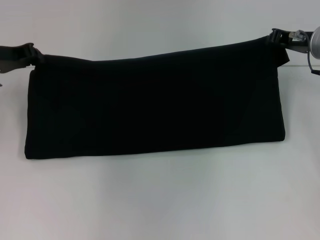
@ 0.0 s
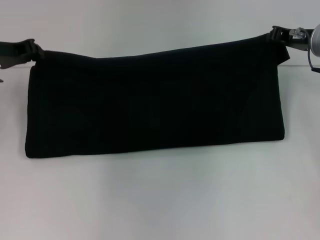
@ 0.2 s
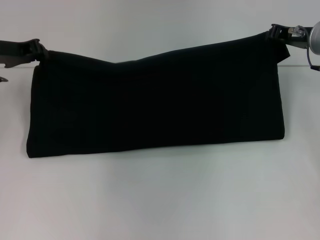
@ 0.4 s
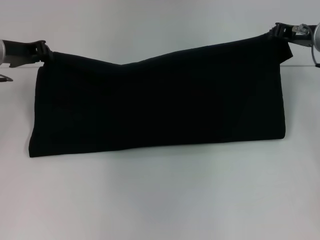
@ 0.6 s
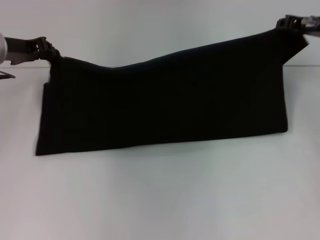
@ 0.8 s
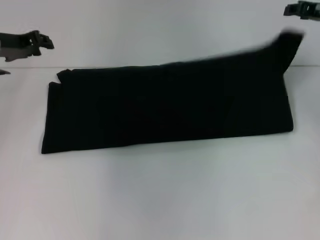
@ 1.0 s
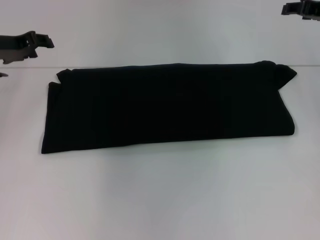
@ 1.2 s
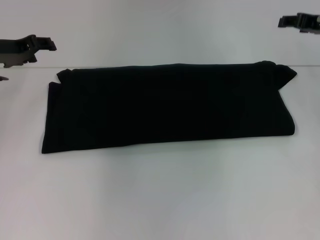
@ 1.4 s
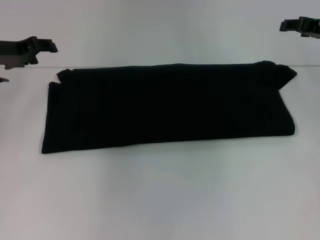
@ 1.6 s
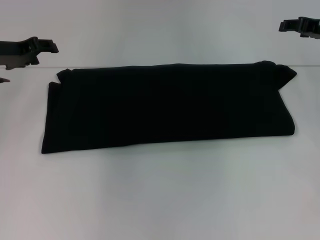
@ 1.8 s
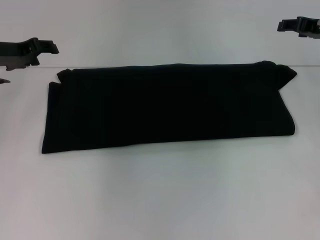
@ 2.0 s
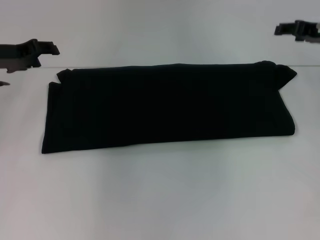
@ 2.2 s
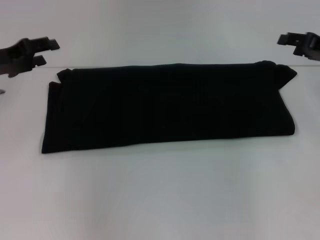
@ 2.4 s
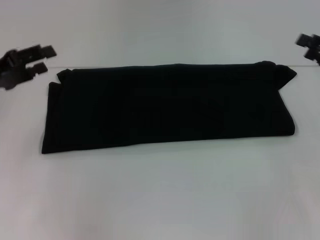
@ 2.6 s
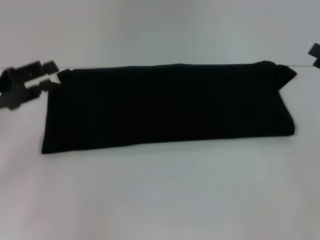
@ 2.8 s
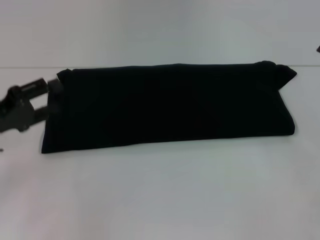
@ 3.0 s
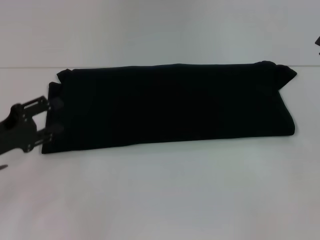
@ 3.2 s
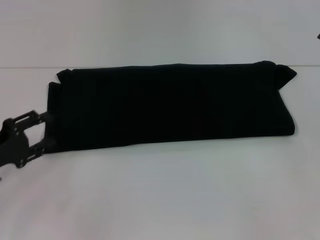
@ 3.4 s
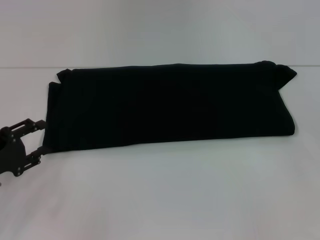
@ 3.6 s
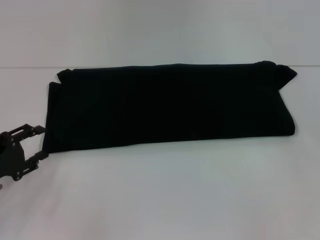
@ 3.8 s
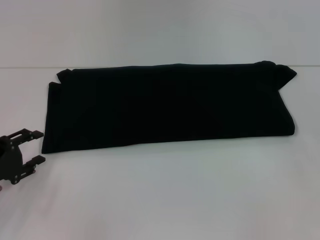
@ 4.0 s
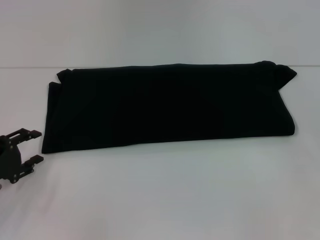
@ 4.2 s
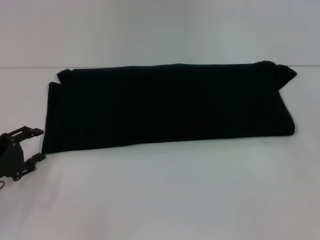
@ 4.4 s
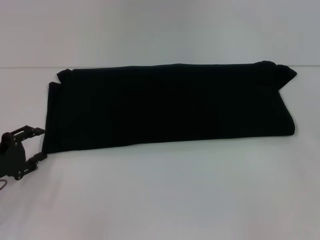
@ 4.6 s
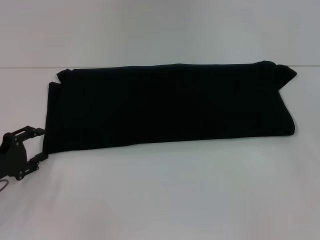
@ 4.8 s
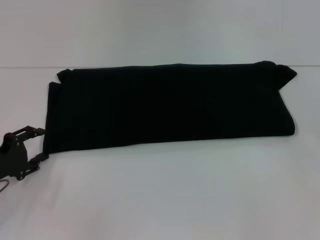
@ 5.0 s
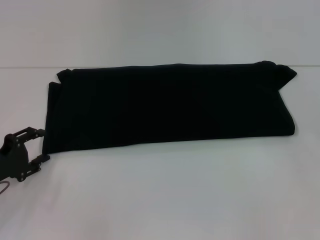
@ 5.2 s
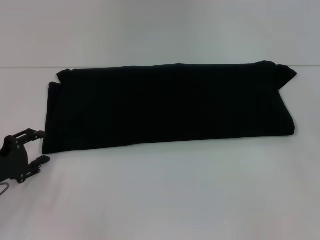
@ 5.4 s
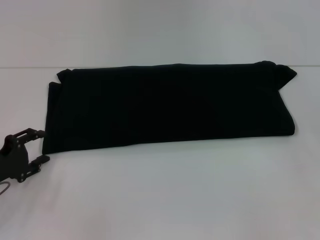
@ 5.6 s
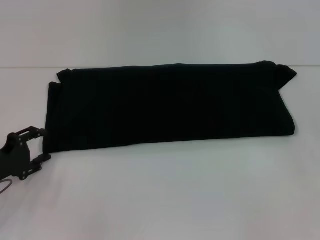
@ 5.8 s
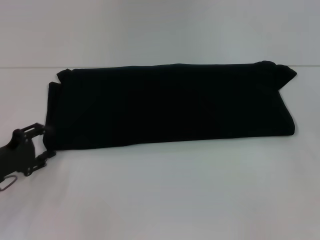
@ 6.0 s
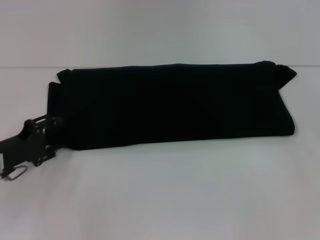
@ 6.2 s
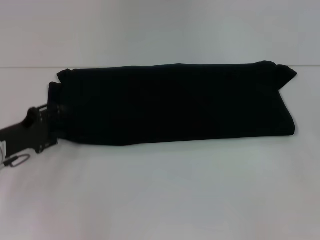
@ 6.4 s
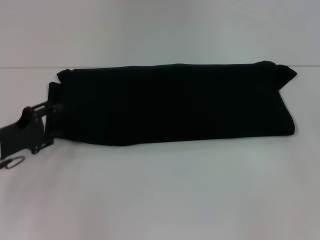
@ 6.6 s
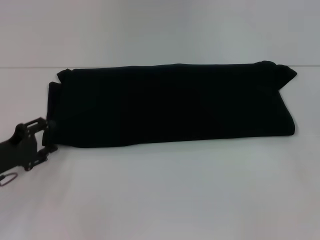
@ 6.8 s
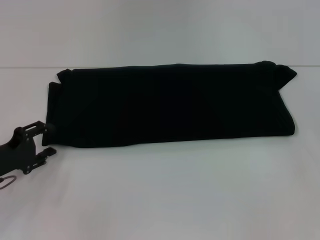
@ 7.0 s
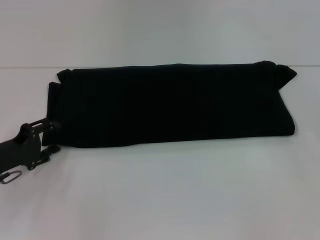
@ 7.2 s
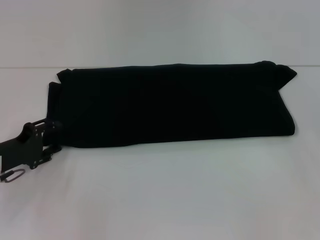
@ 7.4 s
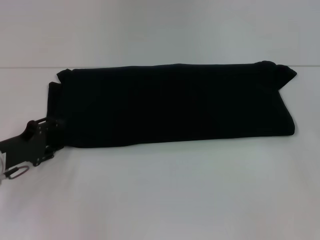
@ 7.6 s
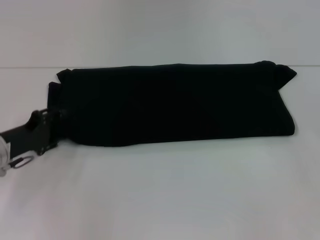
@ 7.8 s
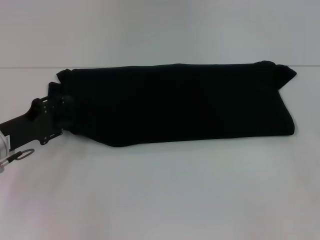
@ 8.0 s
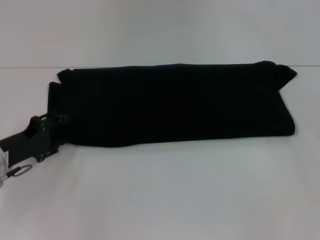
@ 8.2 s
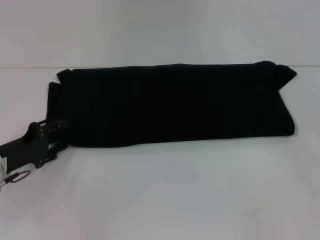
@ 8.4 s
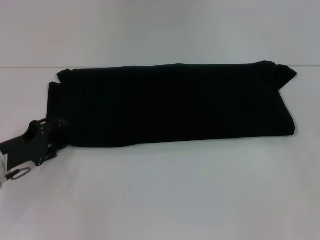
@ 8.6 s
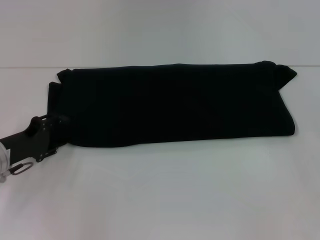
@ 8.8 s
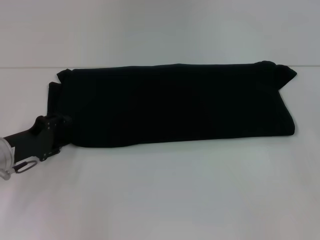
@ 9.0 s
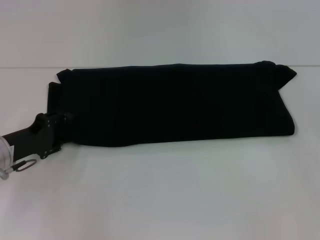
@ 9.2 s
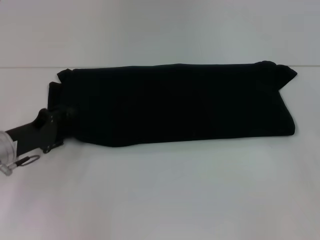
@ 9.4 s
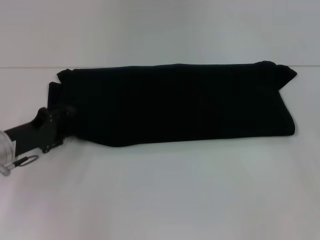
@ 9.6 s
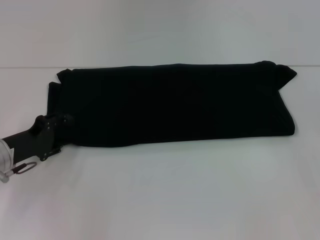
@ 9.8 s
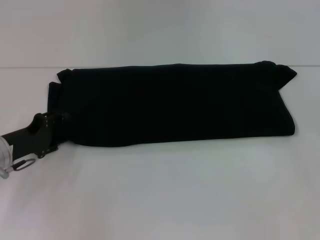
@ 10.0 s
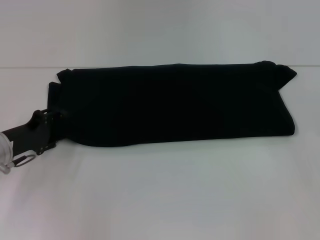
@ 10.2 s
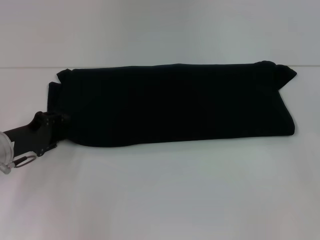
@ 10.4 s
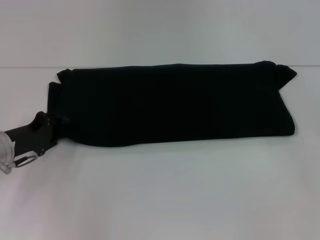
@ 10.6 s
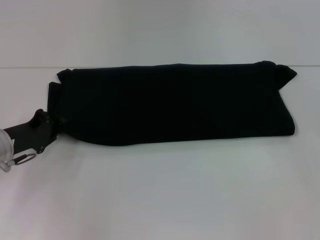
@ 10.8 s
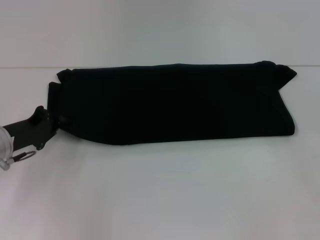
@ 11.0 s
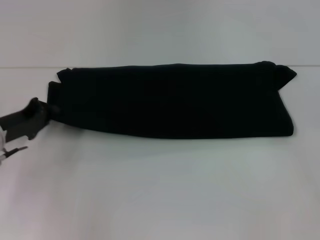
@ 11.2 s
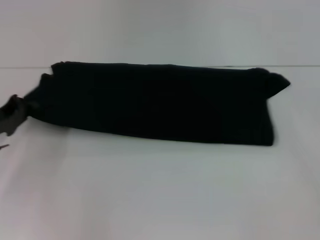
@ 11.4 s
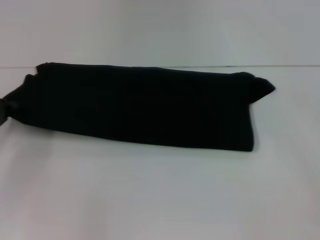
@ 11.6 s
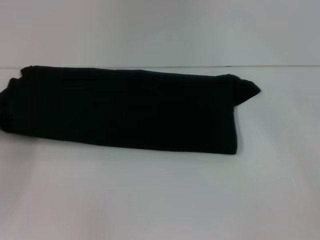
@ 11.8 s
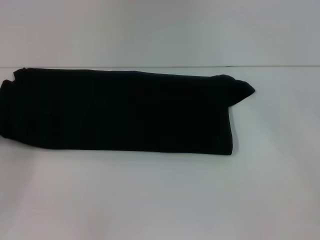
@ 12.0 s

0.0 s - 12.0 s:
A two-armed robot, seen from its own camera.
Step, 0.0 s - 2.0 s: Fold the clothes with your right hand.
0.0 s - 1.6 s: The left gripper opens. Meanwhile the right gripper opens its fingers.
1.6 s - 3.0 s: The right gripper shifts roughly 15 cm backward and to the right. Meanwhile the left gripper heads backward and downward, covering roughly 15 cm.
3.0 s - 4.4 s: The left gripper moves downward, approximately 5 cm.
4.4 s - 7.6 s: There are only small adjustments of the grippers.
7.6 s - 10.4 s: The grippers make only small movements.
10.4 s - 12.0 s: The left gripper travels to the left by roughly 5 cm, and closes.

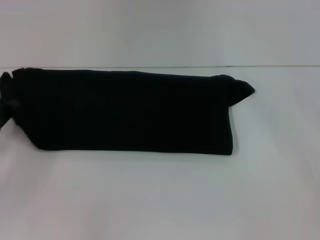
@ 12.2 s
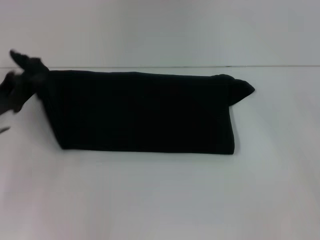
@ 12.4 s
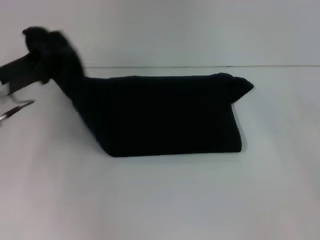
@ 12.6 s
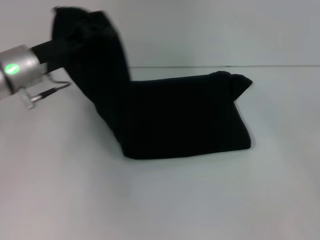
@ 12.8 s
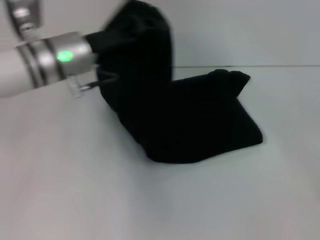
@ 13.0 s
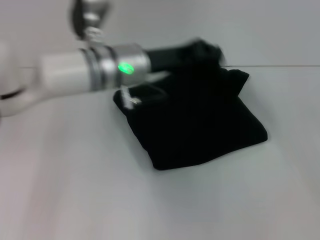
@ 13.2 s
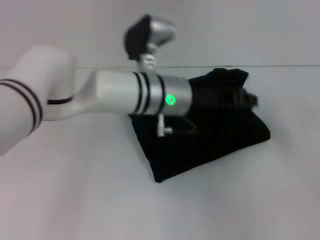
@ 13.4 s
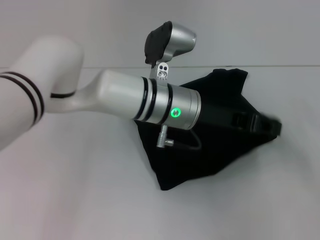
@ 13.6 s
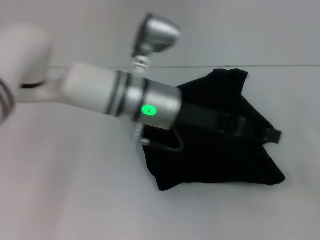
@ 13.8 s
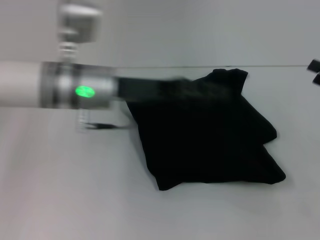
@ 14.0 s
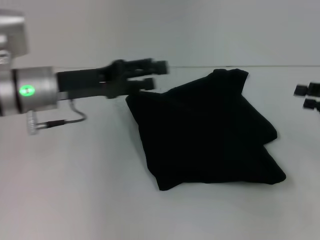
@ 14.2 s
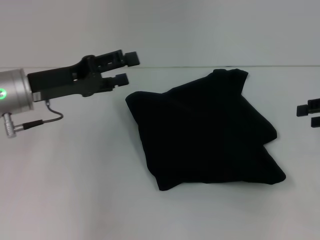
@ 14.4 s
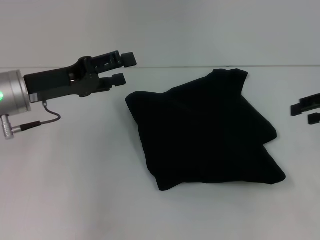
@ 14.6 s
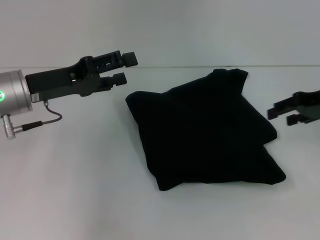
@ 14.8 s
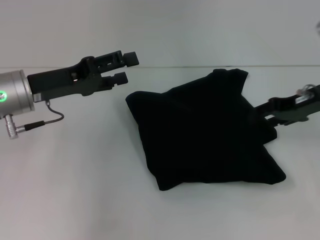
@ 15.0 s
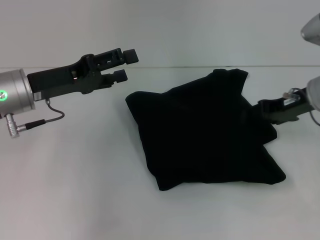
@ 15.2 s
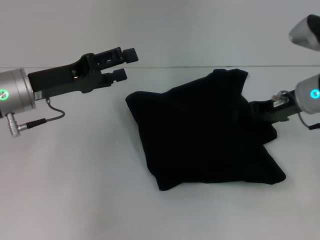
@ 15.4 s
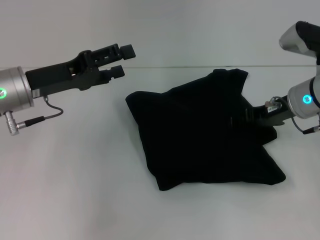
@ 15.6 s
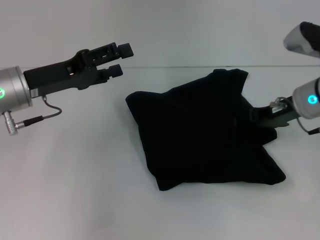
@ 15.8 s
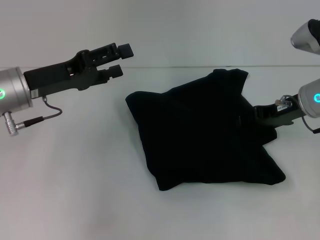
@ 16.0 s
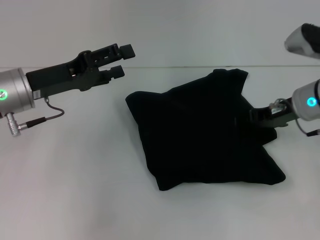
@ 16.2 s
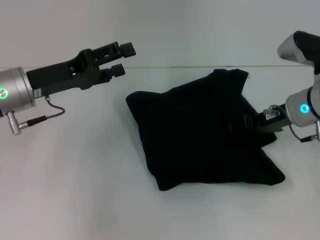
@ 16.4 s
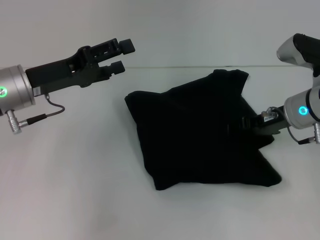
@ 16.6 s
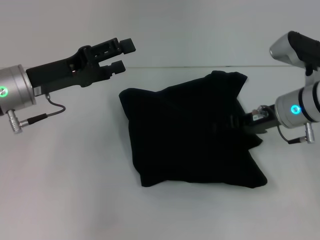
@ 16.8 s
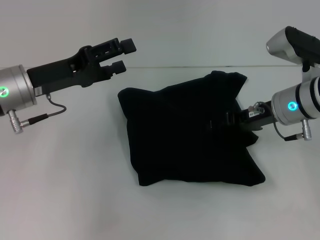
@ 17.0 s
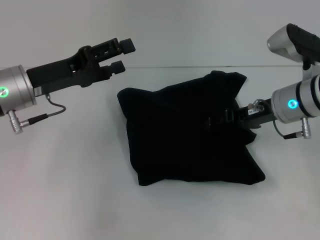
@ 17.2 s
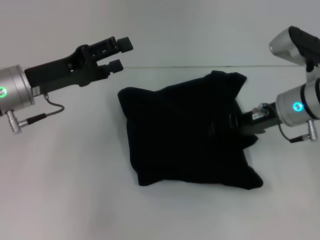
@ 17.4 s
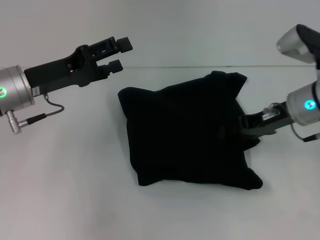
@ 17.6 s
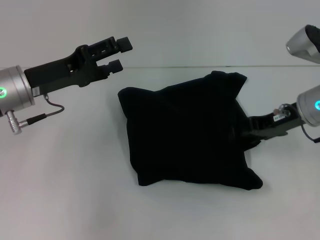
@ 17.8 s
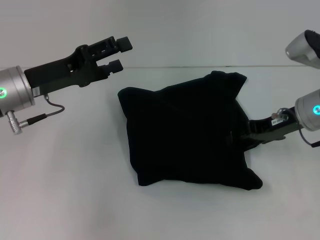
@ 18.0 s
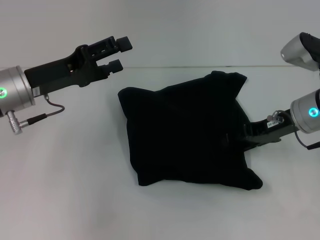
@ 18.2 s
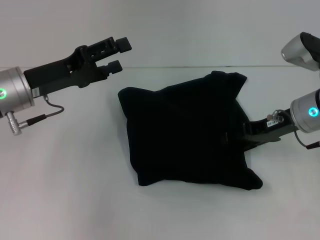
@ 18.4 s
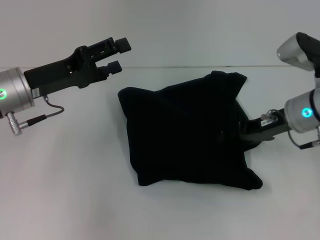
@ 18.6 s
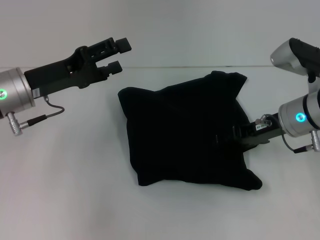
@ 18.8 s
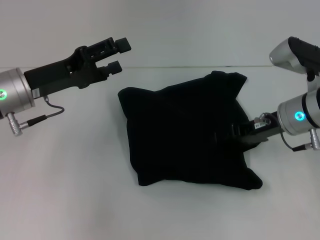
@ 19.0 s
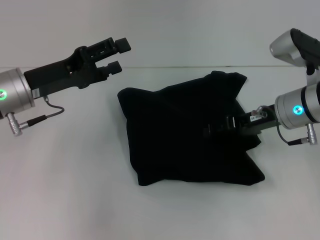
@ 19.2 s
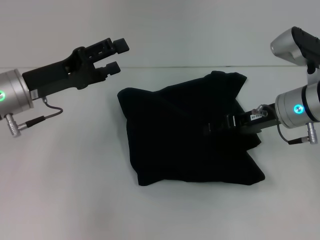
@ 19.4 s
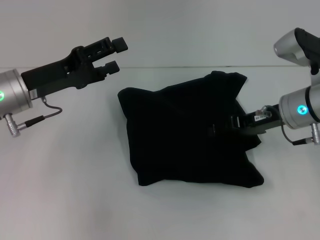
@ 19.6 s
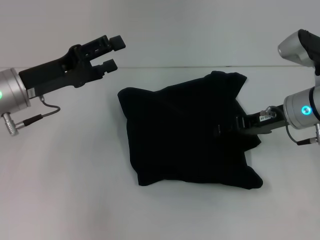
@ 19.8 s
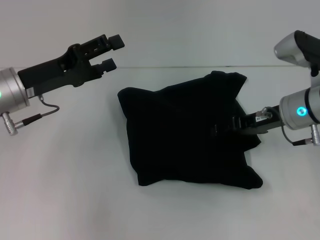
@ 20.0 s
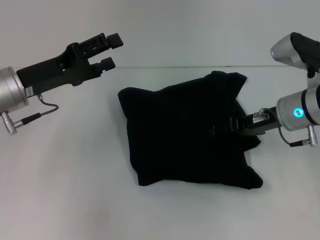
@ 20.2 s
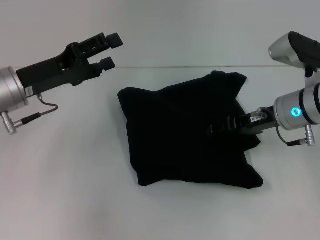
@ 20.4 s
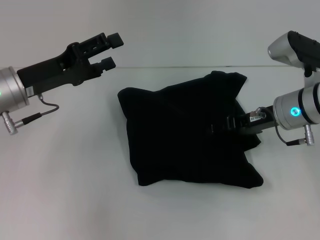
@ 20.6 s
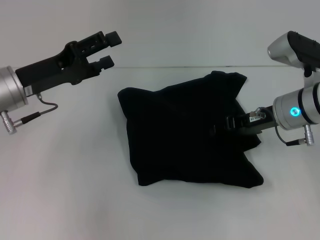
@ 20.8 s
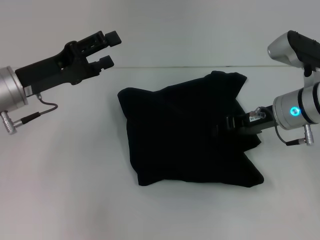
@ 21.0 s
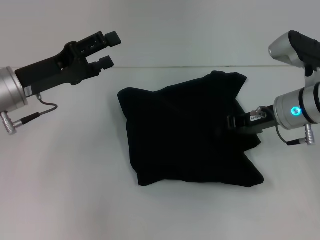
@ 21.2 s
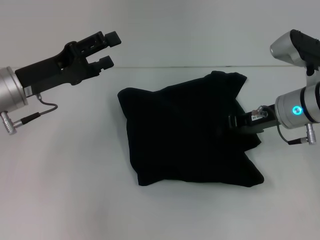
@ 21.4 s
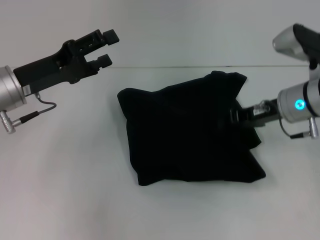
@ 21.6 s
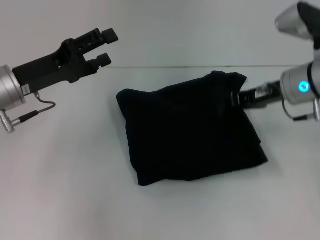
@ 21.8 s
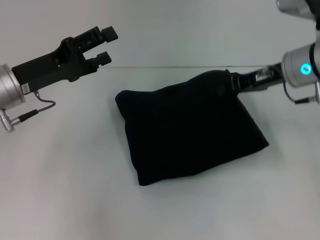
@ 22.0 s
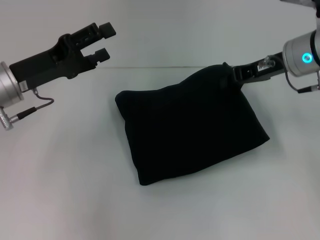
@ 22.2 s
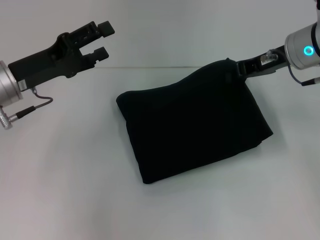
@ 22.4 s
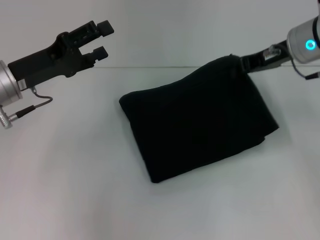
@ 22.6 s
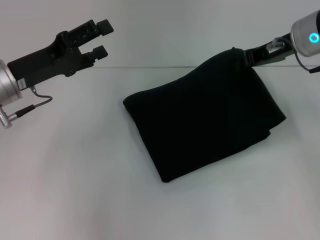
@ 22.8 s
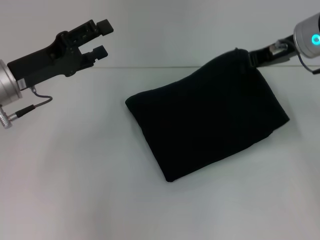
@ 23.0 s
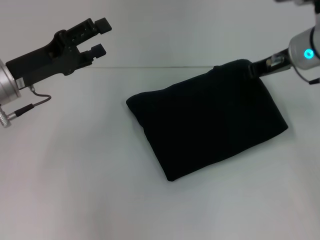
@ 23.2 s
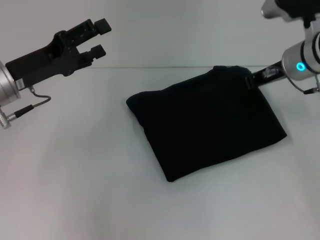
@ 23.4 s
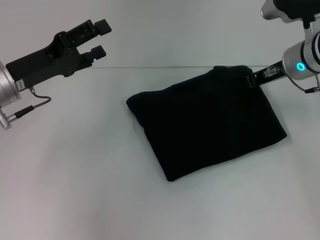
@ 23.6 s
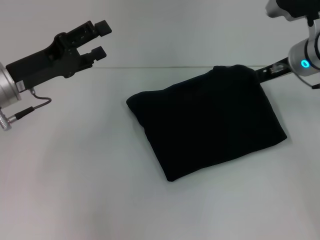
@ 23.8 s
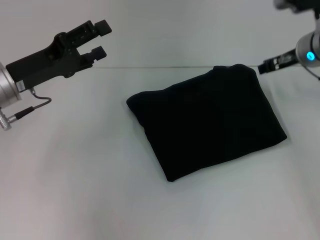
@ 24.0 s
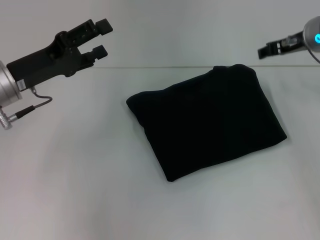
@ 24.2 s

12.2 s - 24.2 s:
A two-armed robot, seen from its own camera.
Step, 12.2 s - 14.6 s: Fold the clothes with your left hand.
12.2 s - 13.8 s: The left gripper heads to the right, covering about 30 cm.
13.8 s - 15.2 s: The right gripper goes about 15 cm to the left and forward, while the left gripper heads to the left, covering approximately 20 cm, and opens its fingers.
15.2 s - 19.8 s: The grippers make only small movements.
19.8 s - 21.2 s: The right gripper closes up.
21.2 s - 22.6 s: The right gripper shifts roughly 10 cm upward.
22.6 s - 24.2 s: The right gripper opens.
